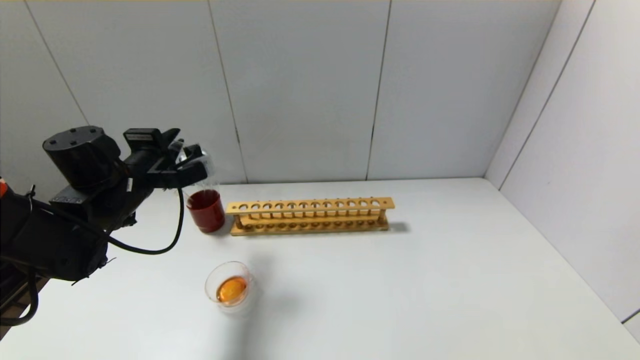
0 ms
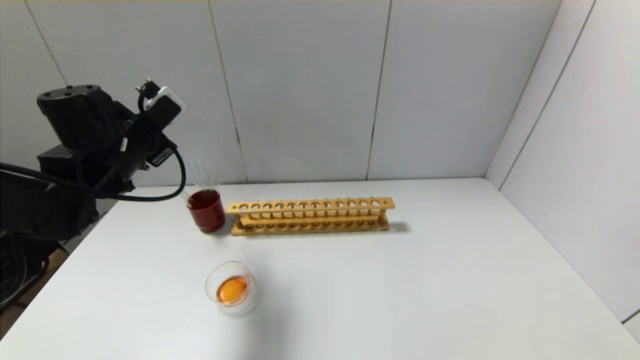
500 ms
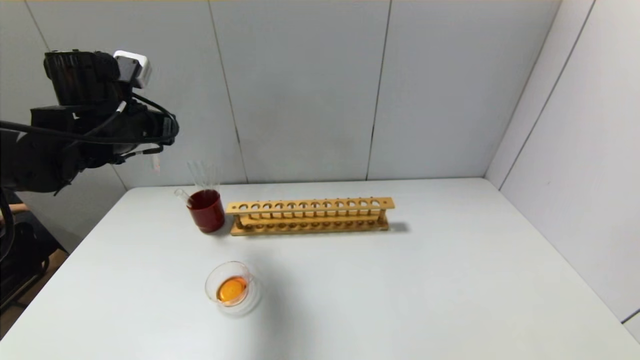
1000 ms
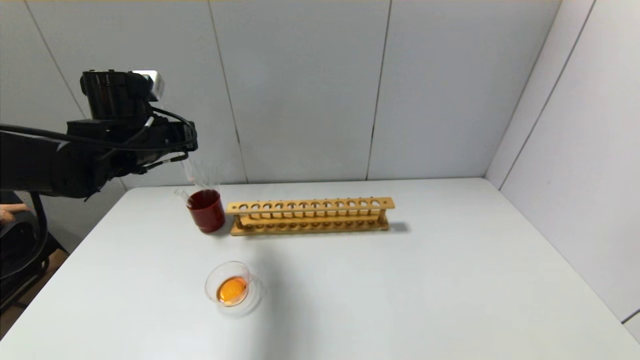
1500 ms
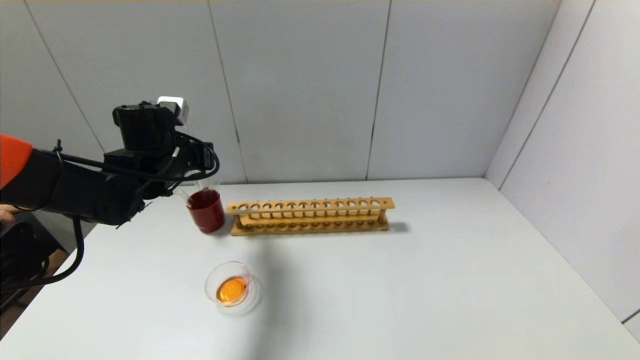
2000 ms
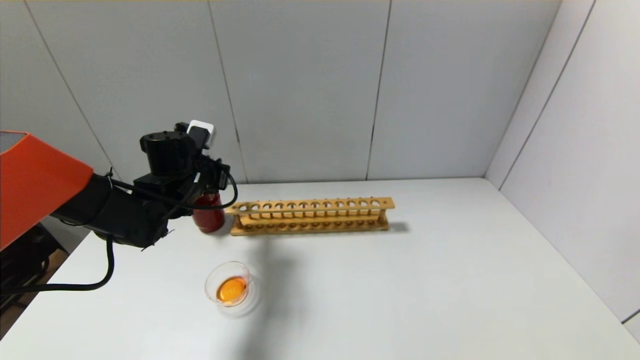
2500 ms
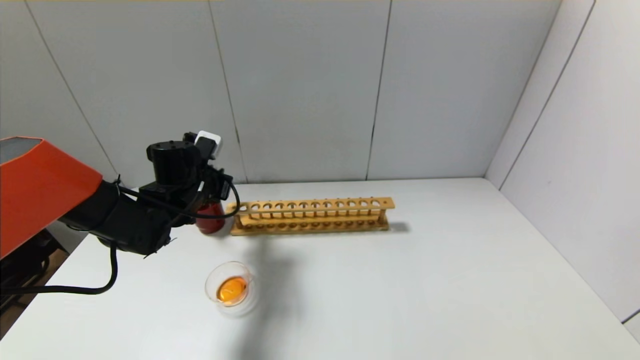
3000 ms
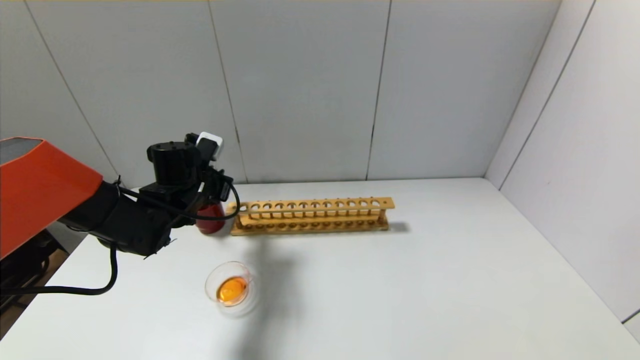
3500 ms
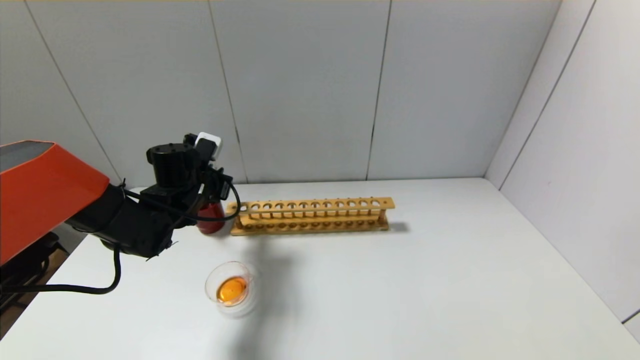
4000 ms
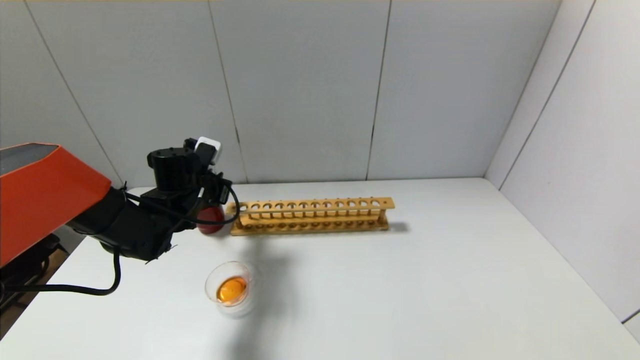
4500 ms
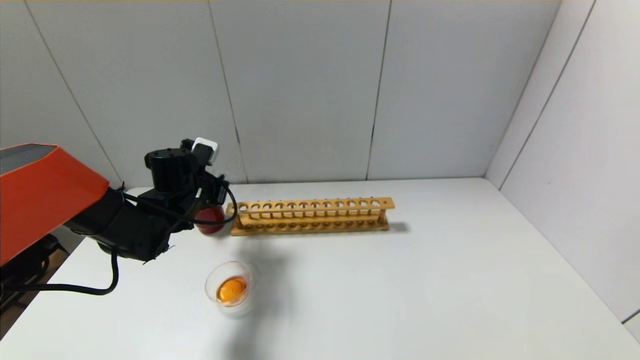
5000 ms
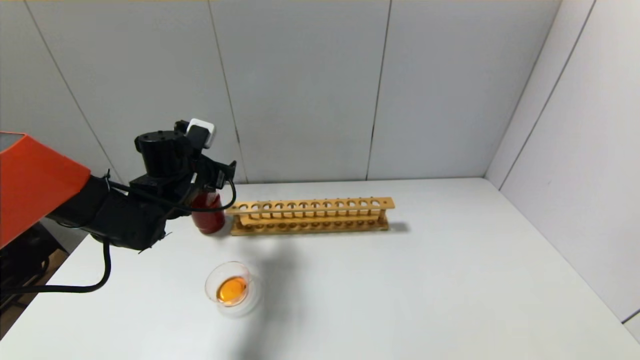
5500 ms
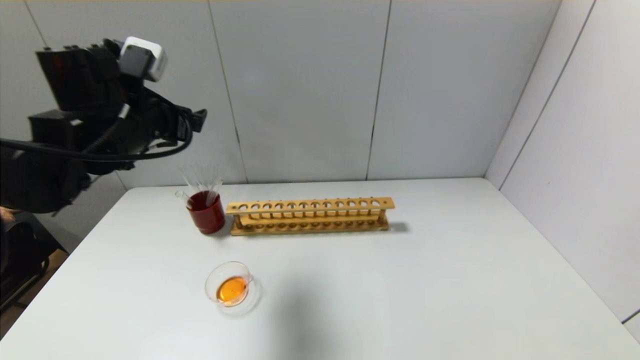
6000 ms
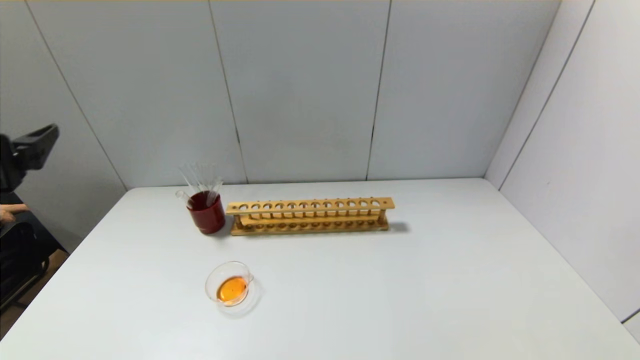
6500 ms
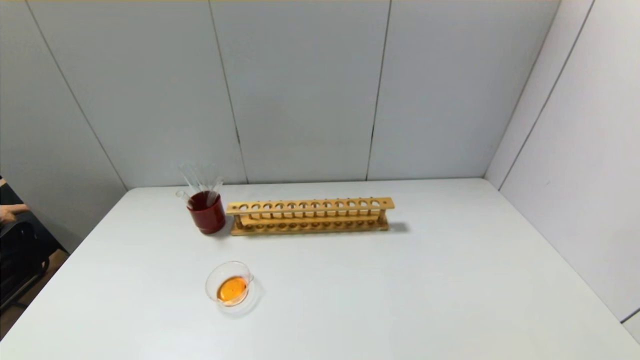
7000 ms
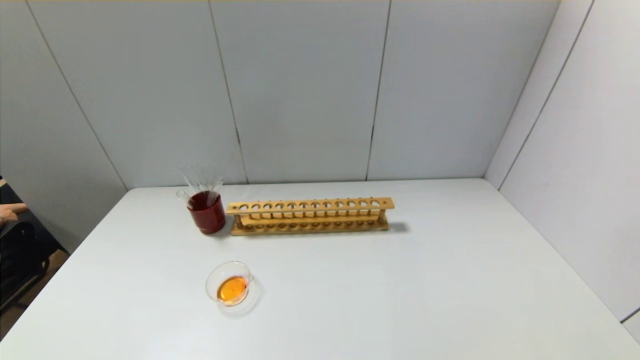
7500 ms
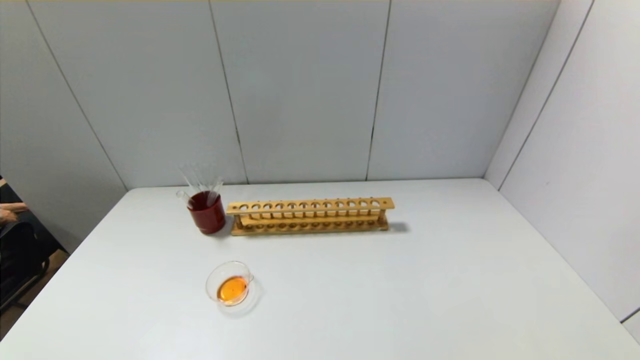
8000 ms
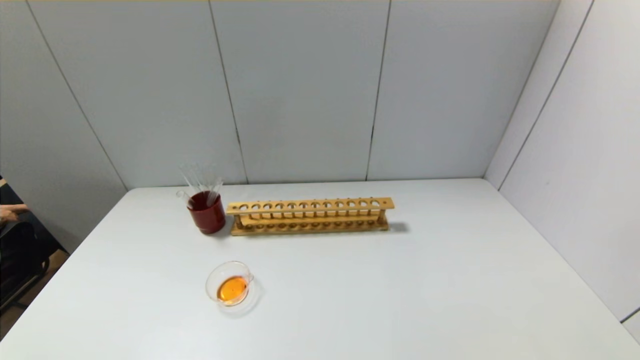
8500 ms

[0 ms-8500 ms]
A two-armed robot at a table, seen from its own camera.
Step, 0 ms to 4500 ms: Place the test tube into the brown cup with the left gripper.
0 ms to 2000 ms: The left gripper moves approximately 5 cm.
2000 ms to 4000 ms: The left gripper travels downward by some 5 cm.
4000 ms to 6500 ms: The left gripper shifts some 30 cm backward and upward, and opens up.
6500 ms to 8500 ms: The left gripper goes some 25 cm downward and backward.

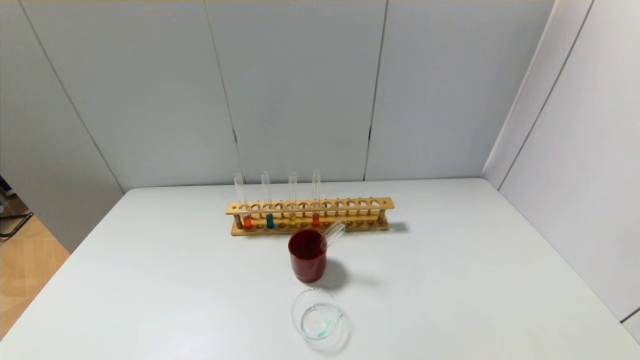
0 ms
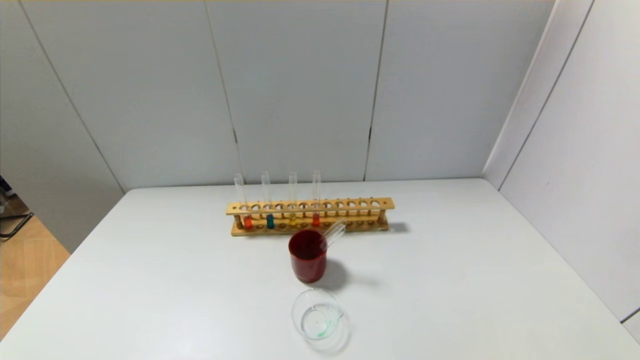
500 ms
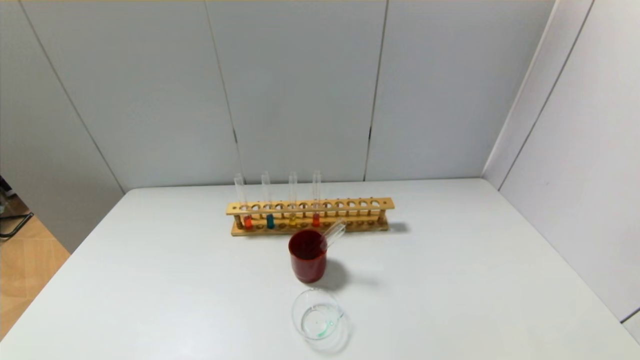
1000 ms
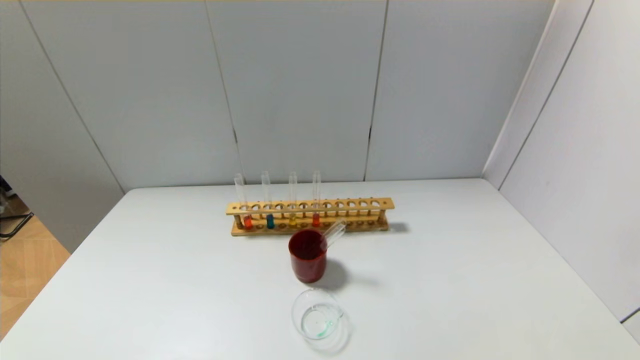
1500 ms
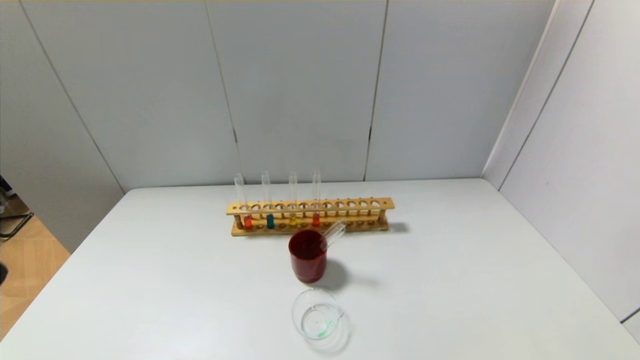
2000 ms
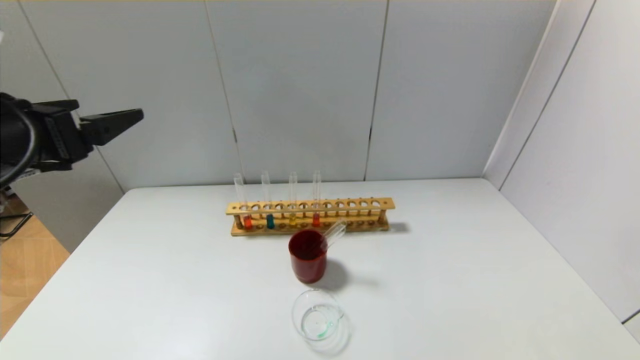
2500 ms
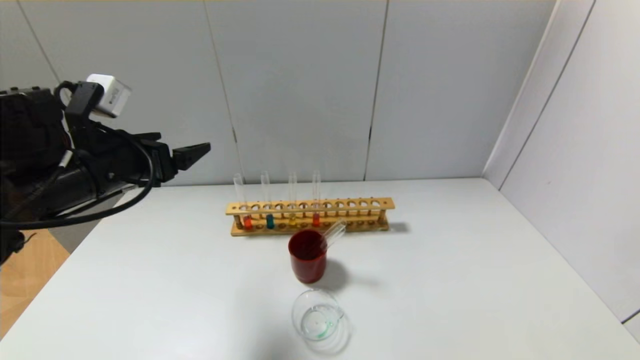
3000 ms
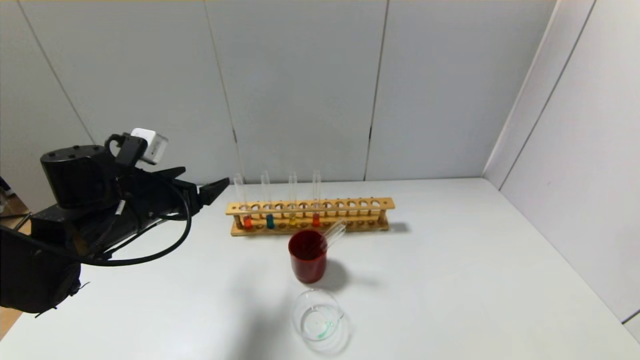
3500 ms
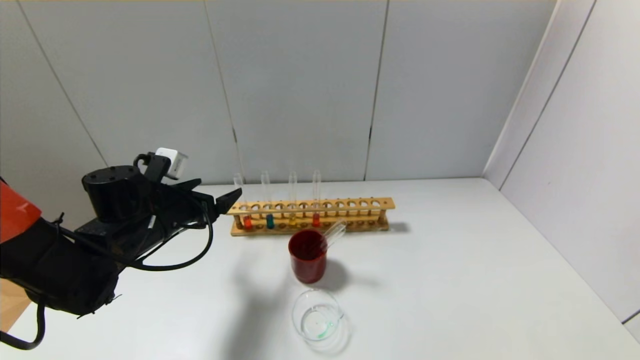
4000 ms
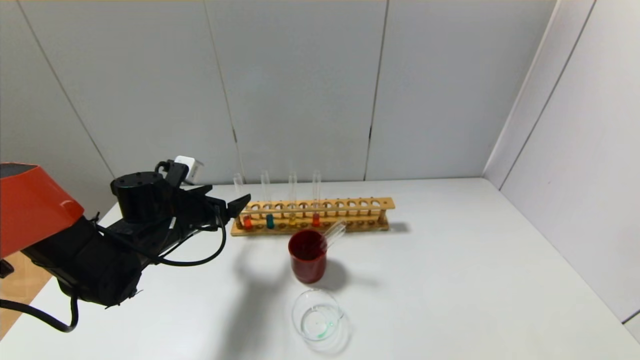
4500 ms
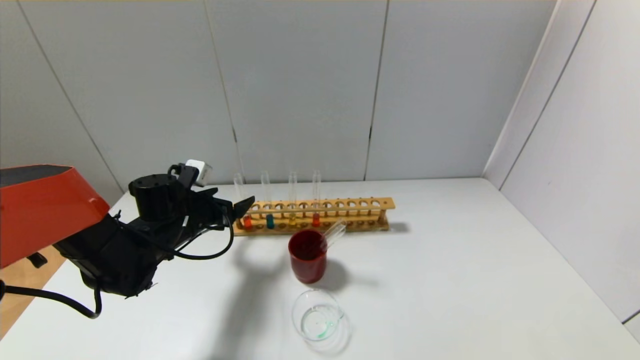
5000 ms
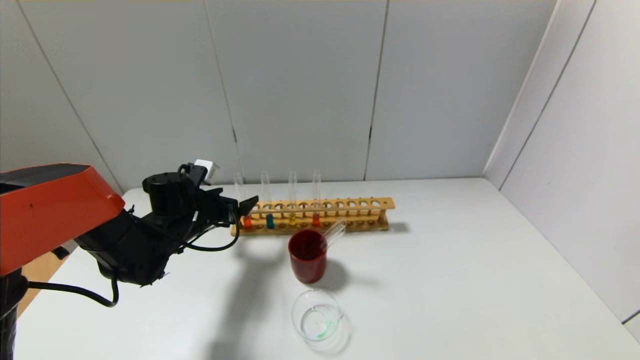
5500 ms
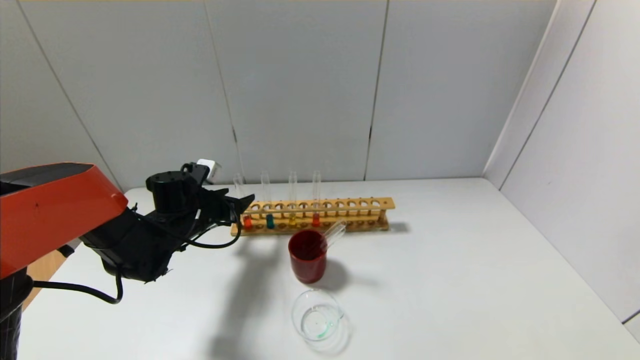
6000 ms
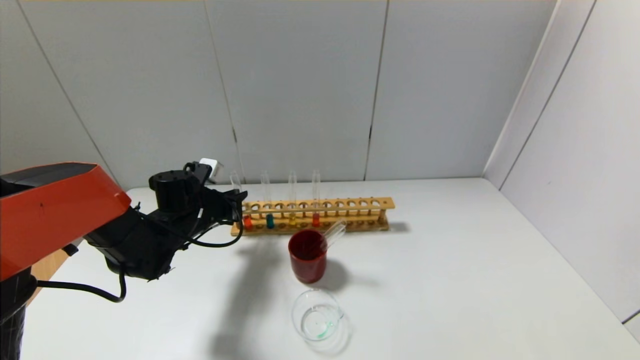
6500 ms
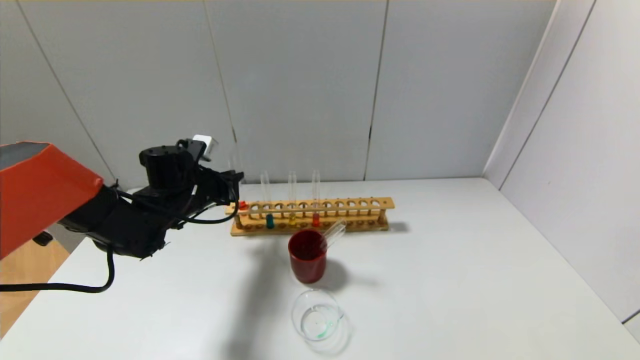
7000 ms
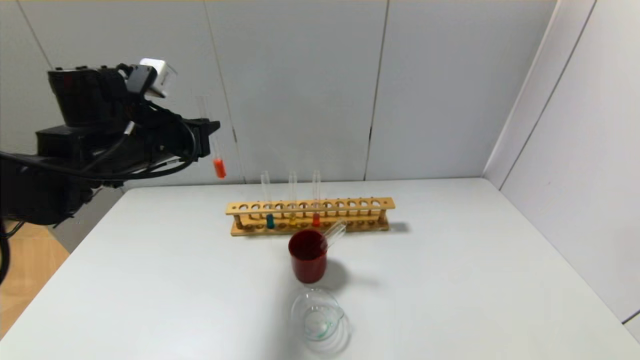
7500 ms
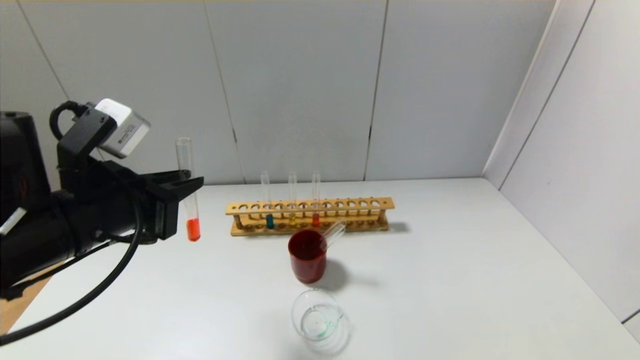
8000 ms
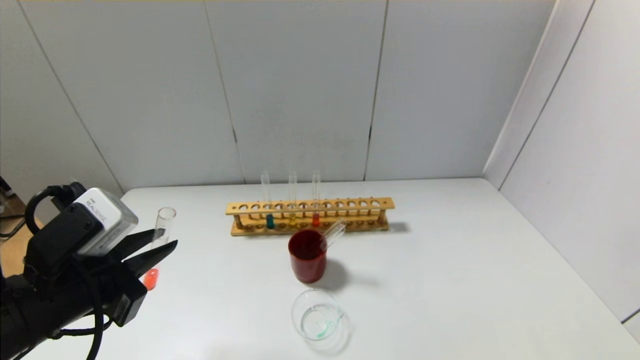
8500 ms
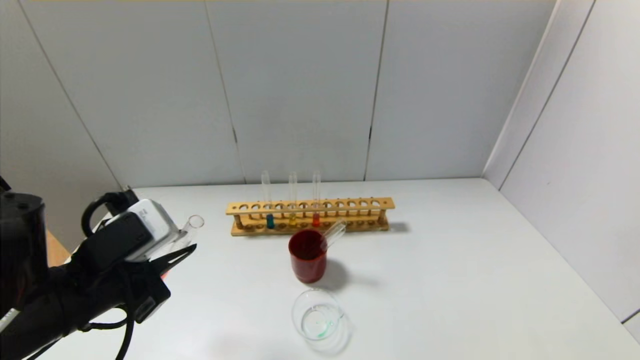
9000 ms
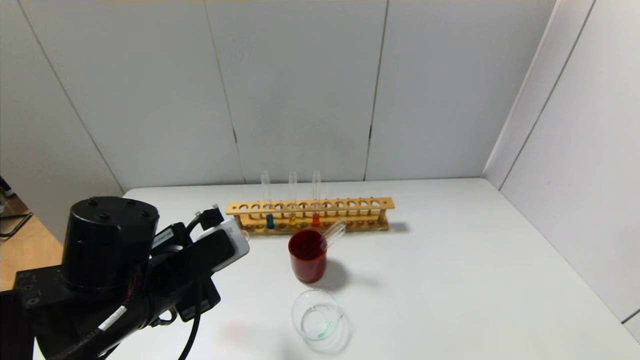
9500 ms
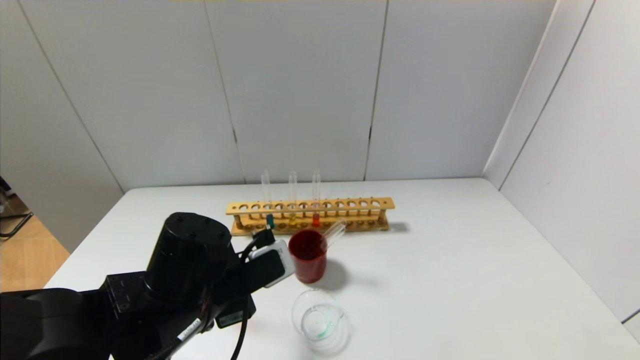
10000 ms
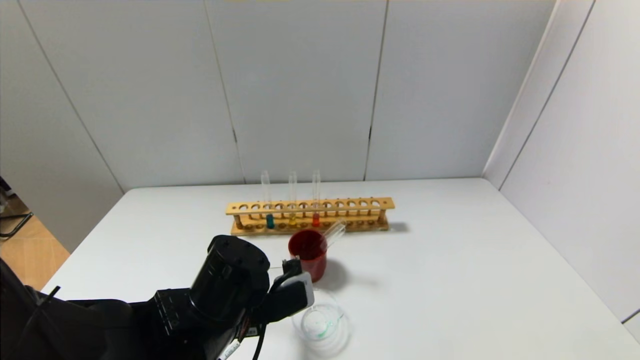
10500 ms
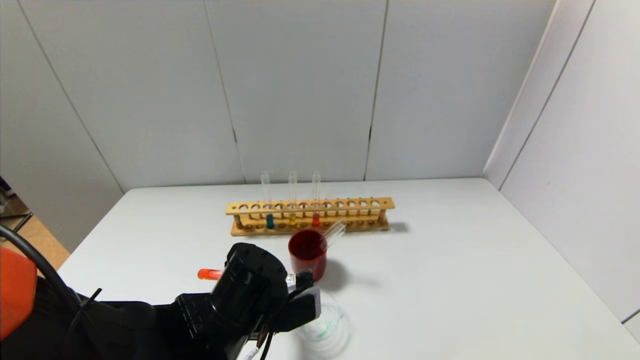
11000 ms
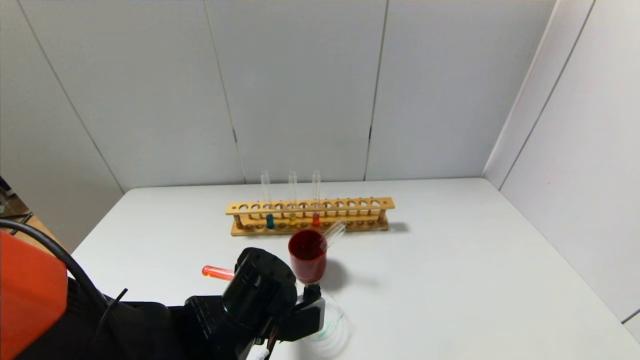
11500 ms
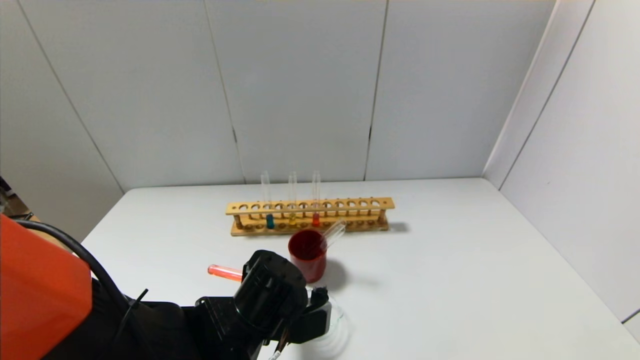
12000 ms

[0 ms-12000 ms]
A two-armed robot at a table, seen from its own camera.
Step, 0 ms to 6500 ms: Grasp the red reagent with the left gripper.
2000 ms to 4000 ms: The left gripper heads forward and downward, covering roughly 30 cm.
4000 ms to 6000 ms: The left gripper heads forward, covering about 5 cm, and closes up.
6000 ms to 8000 ms: The left gripper heads backward and upward, covering approximately 25 cm, and closes its fingers.
8000 ms to 10000 ms: The left gripper moves downward and to the right, approximately 15 cm.
10000 ms to 12000 ms: The left gripper moves downward, roughly 5 cm.
